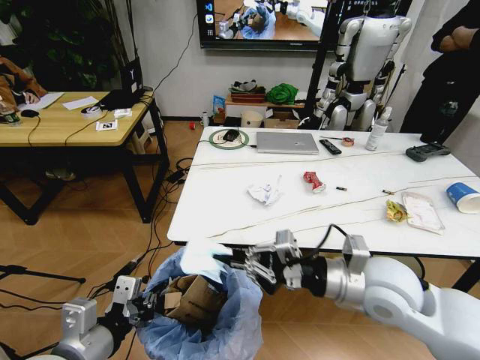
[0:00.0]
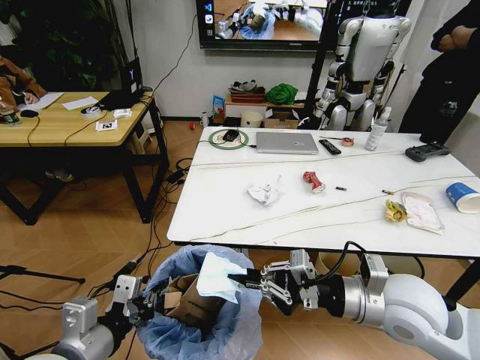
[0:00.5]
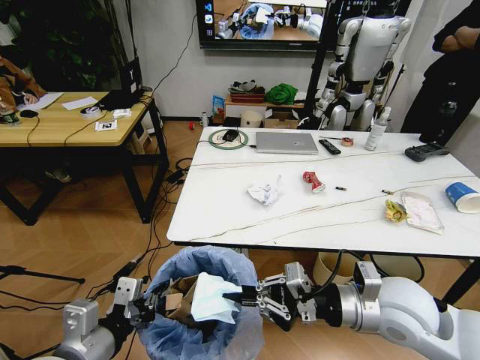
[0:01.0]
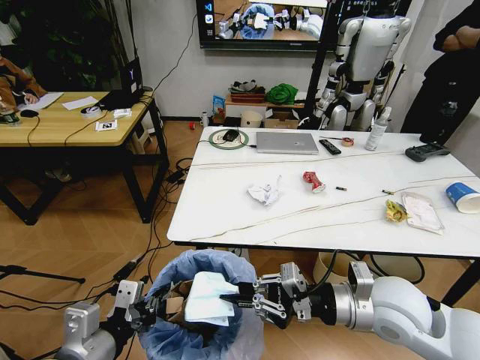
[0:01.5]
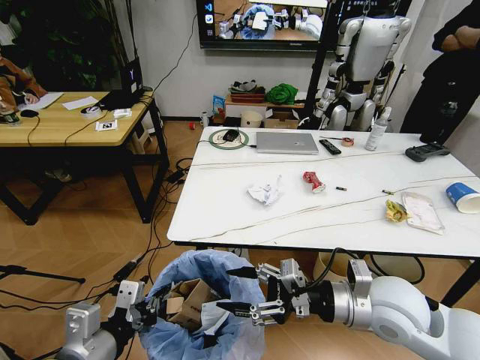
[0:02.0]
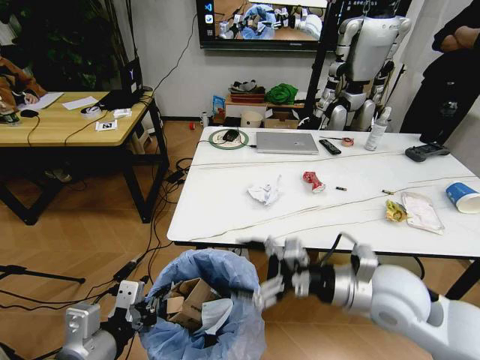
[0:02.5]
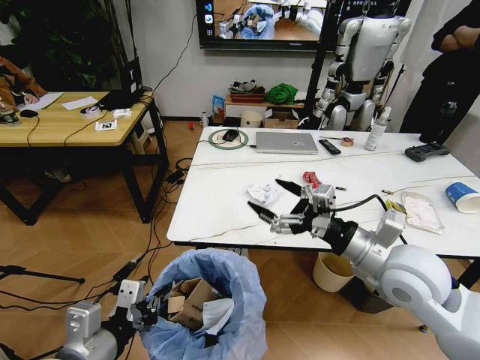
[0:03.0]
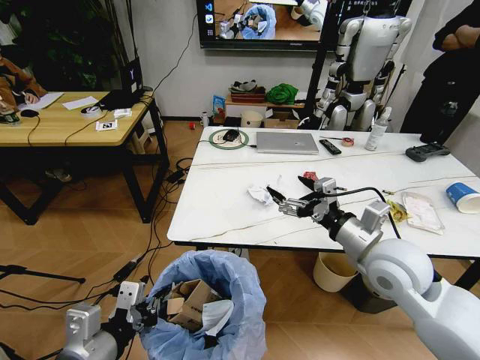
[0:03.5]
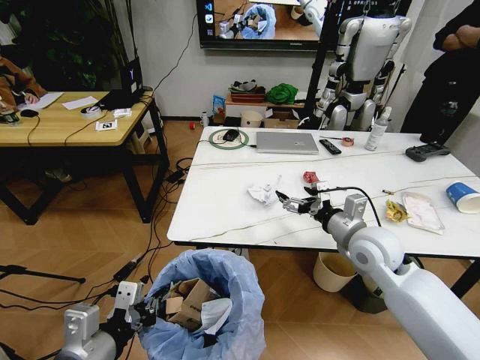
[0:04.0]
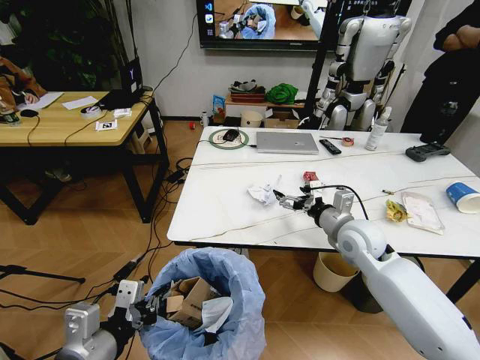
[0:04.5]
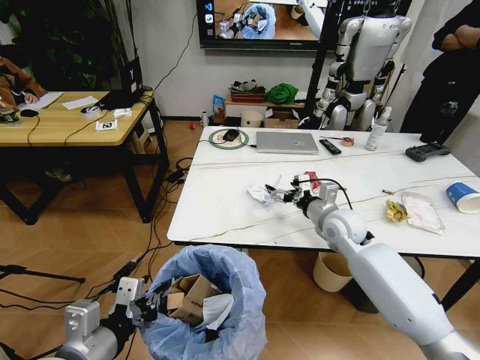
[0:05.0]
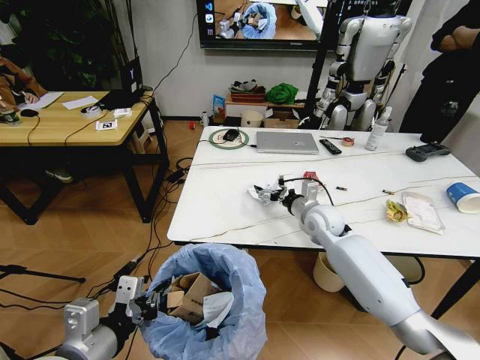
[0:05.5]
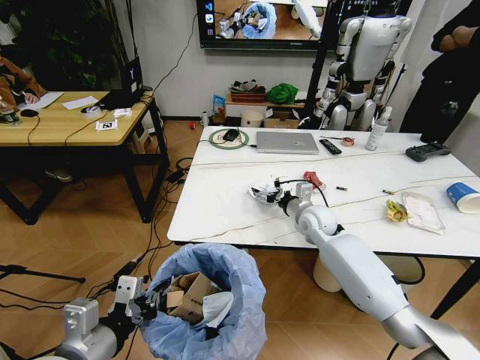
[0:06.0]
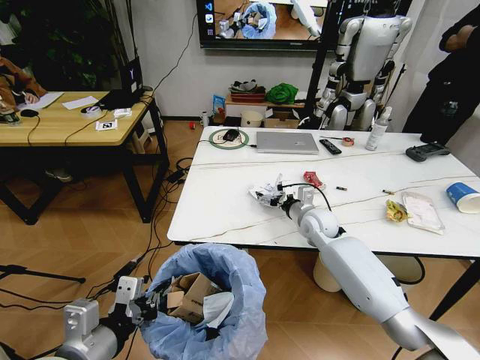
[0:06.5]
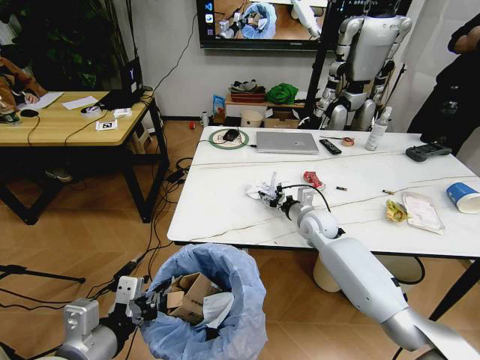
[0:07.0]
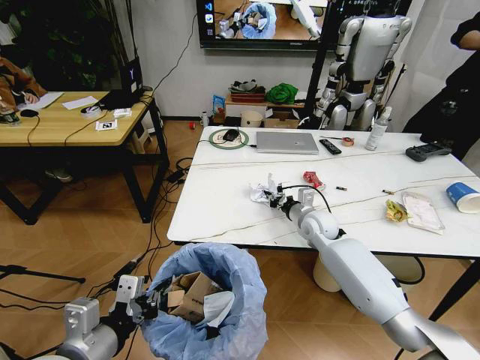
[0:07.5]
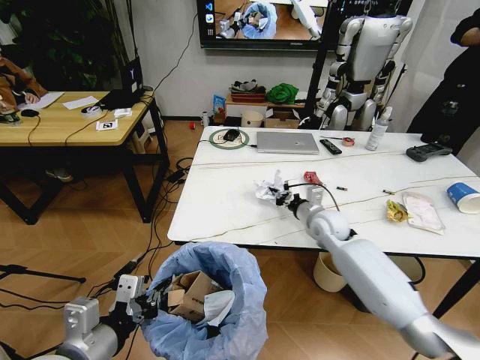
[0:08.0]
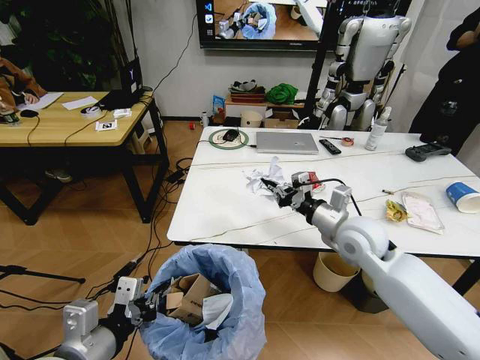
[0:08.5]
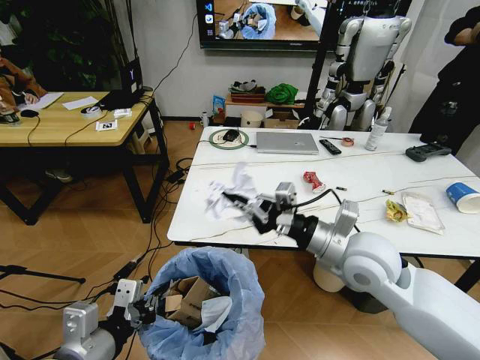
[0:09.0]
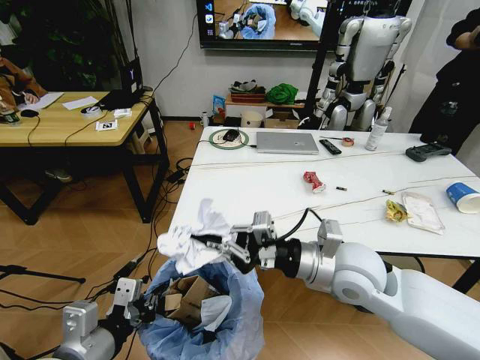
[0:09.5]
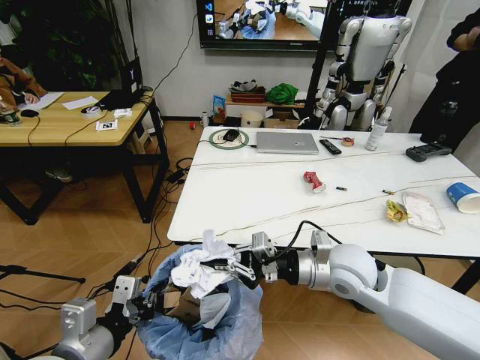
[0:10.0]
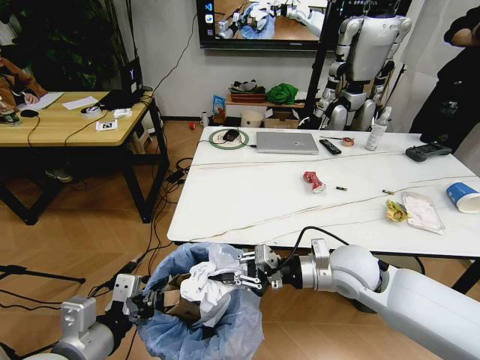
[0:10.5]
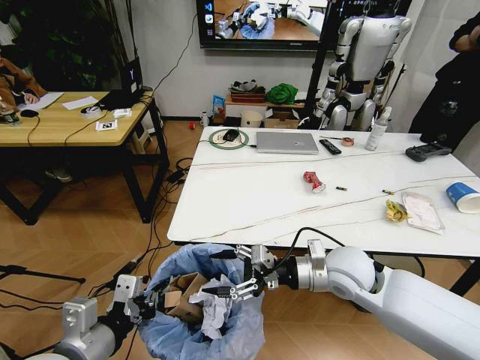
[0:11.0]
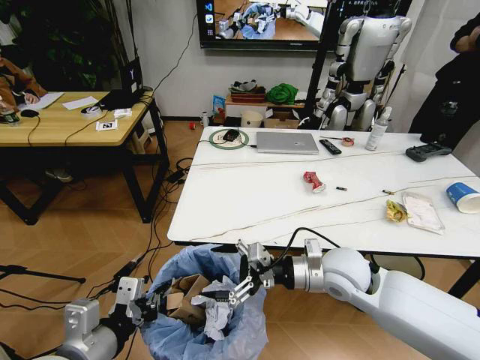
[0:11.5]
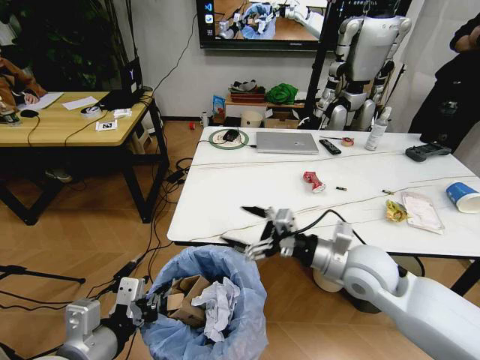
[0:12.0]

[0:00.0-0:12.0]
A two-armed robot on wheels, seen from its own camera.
Task of the whole recording: Pick up the trash bin and place the trash from the table into it.
0:00.0 to 0:02.0: The right gripper opens.
0:02.0 to 0:04.0: The right gripper is displaced forward by roughly 10 cm.
0:04.0 to 0:06.0: The right gripper heads forward, downward and to the left, covering about 15 cm.
0:06.0 to 0:08.0: The right gripper closes.
0:08.0 to 0:10.0: The right gripper shifts about 20 cm backward and upward.
0:10.0 to 0:12.0: The right gripper opens.

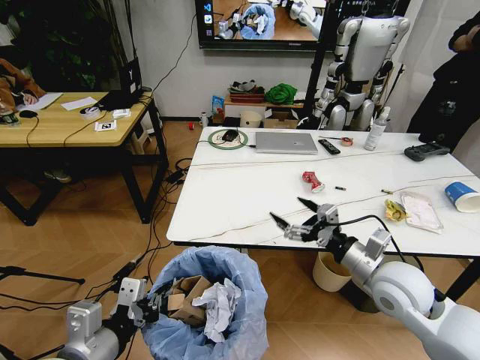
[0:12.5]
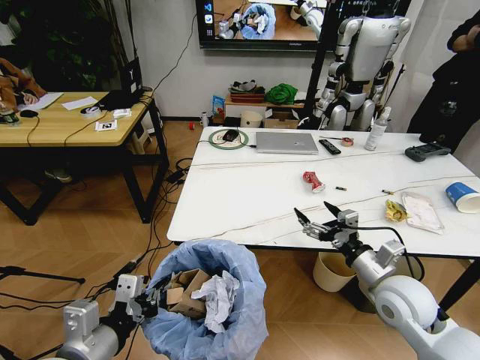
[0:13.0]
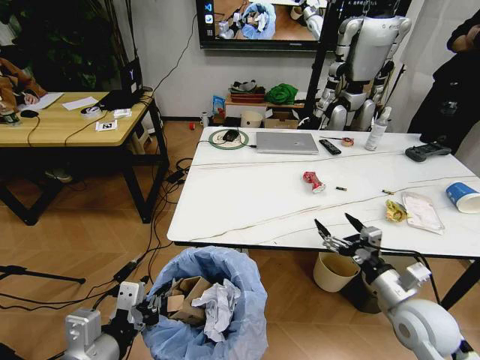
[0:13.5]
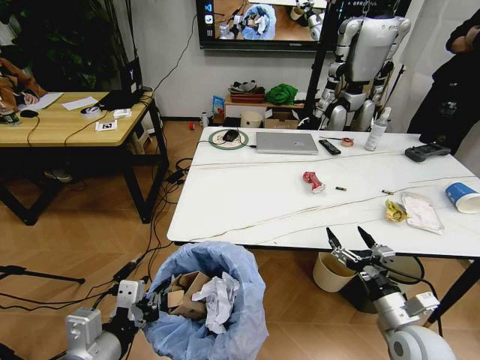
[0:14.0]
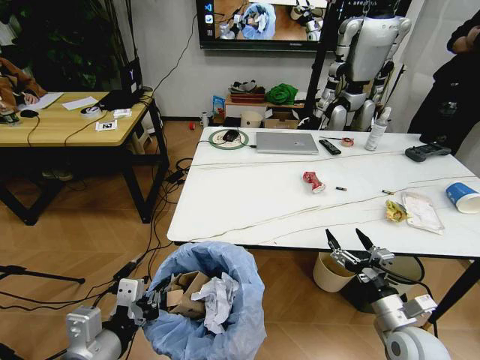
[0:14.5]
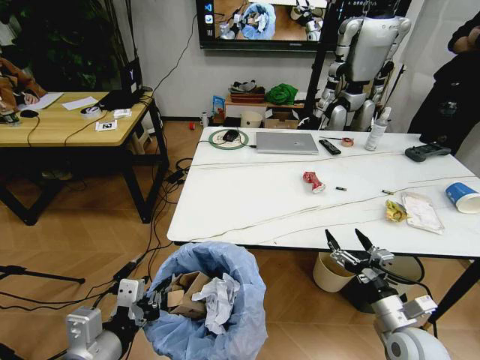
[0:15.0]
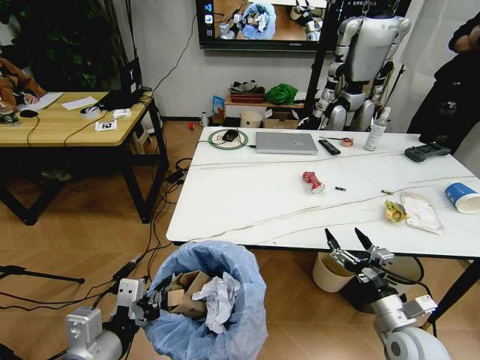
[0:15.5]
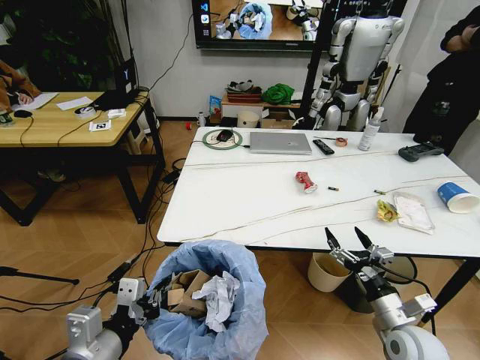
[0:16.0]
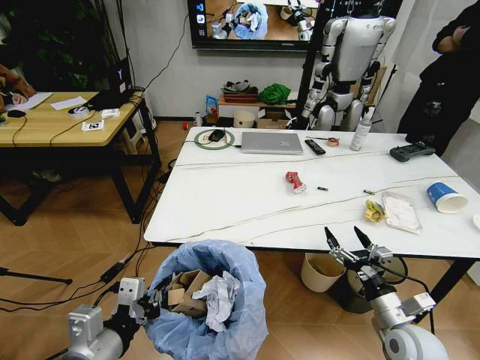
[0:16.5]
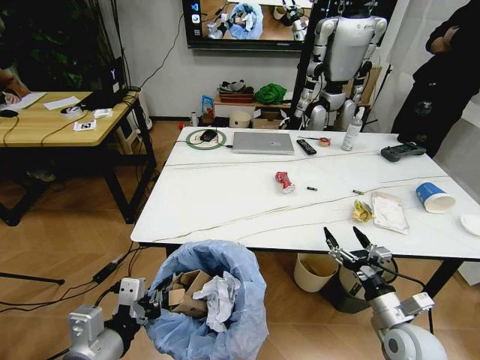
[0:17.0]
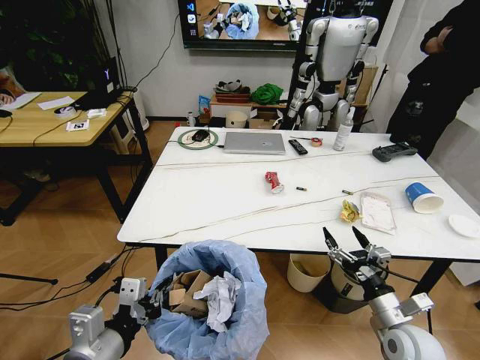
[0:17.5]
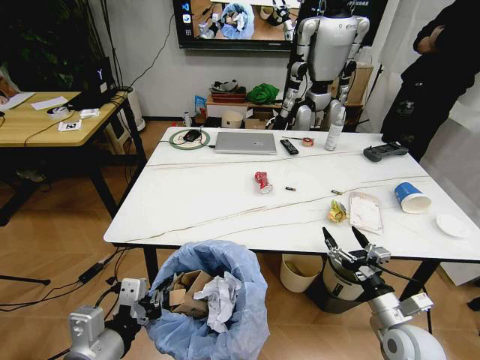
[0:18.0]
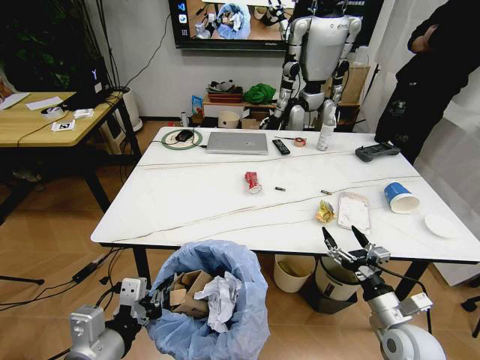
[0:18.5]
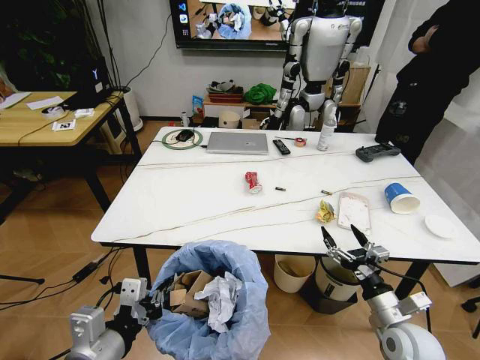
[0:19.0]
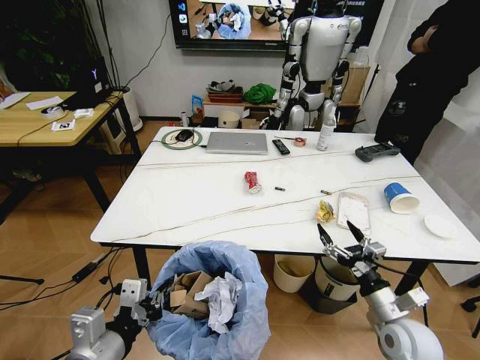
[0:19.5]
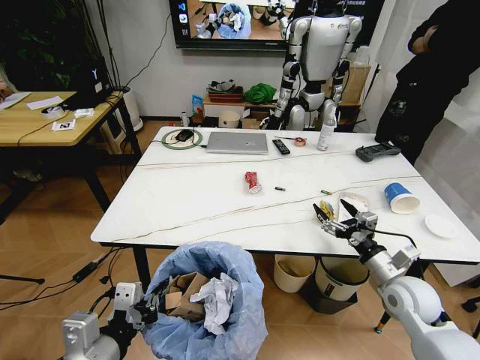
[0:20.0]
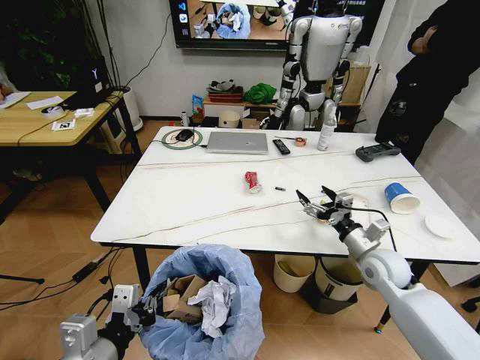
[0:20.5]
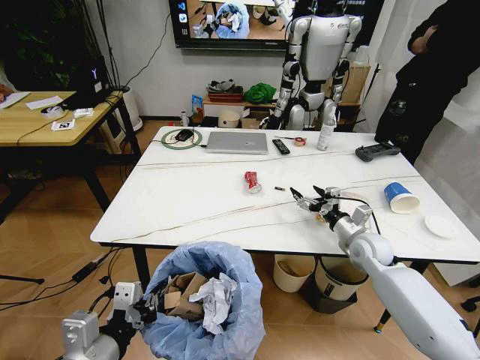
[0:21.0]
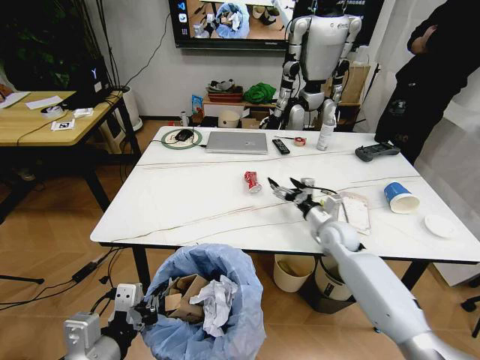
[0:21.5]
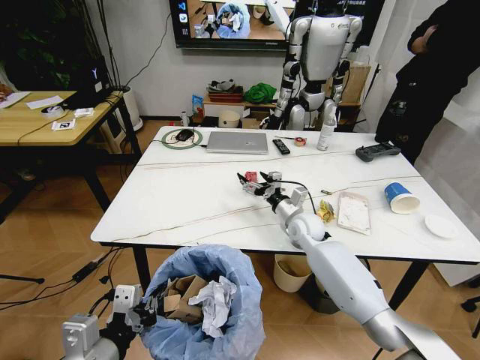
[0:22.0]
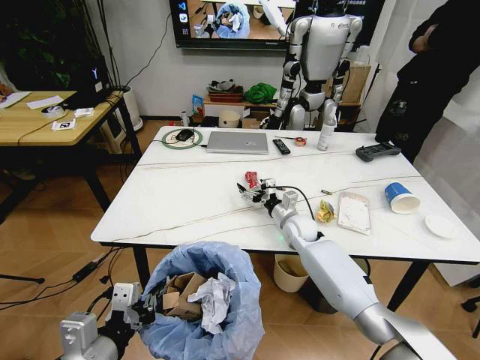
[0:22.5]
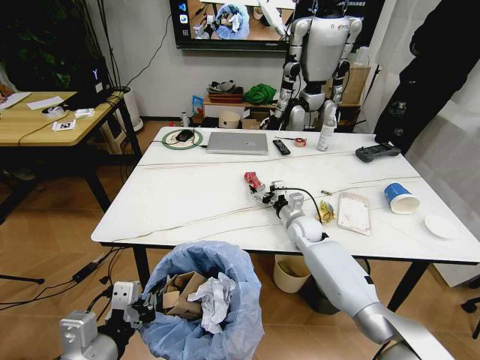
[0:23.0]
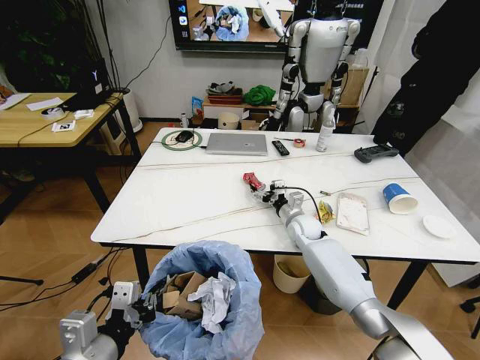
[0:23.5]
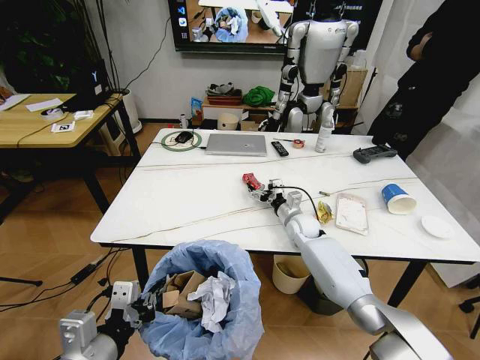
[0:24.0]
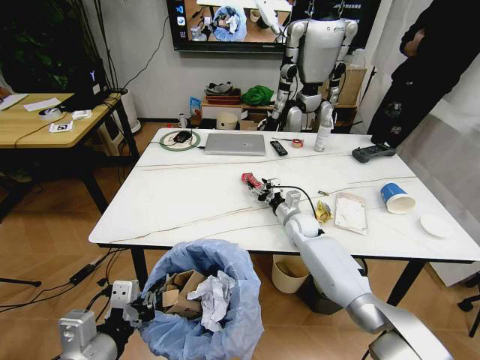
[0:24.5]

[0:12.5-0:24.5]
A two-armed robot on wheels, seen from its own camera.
Task of the whole recording: Pick up the trash bin and place the trash from the table into it.
0:12.5 to 0:14.5: The right gripper moves downward, backward and to the right, some 15 cm.
0:18.5 to 0:20.5: The right gripper shifts roughly 15 cm forward.
0:20.5 to 0:22.5: The right gripper heads to the left and forward, covering some 20 cm.
0:22.5 to 0:24.5: The right gripper closes up.

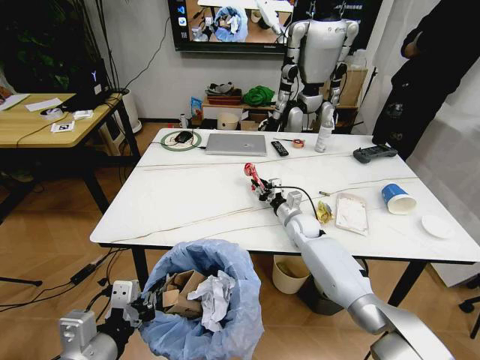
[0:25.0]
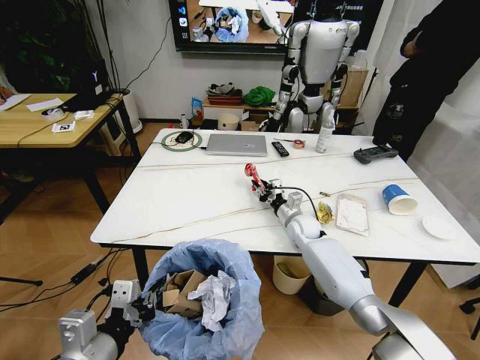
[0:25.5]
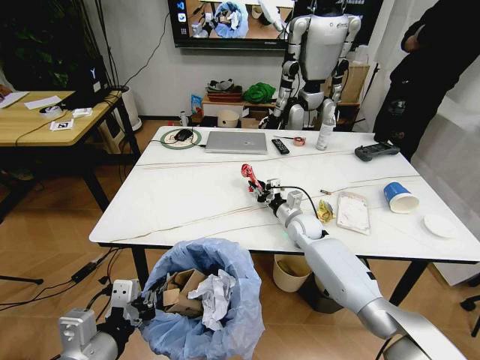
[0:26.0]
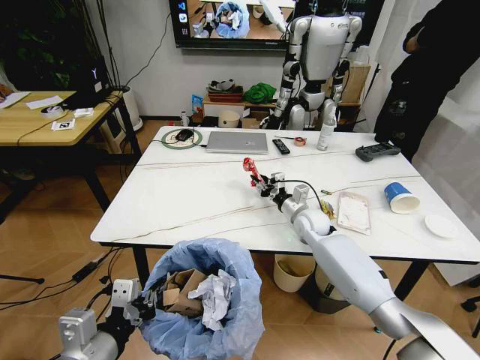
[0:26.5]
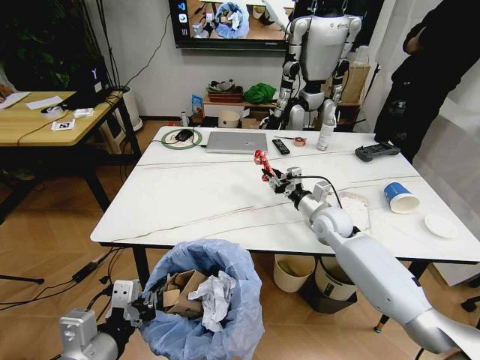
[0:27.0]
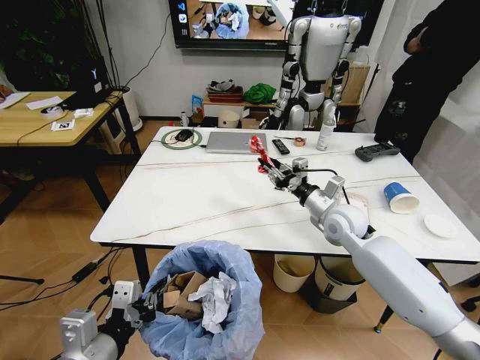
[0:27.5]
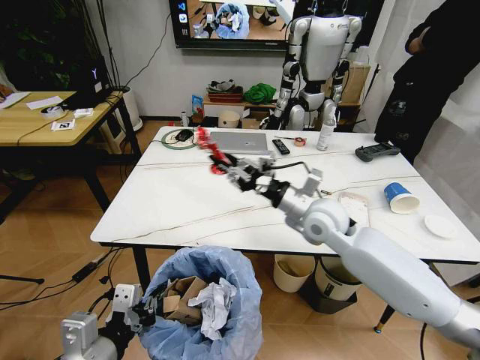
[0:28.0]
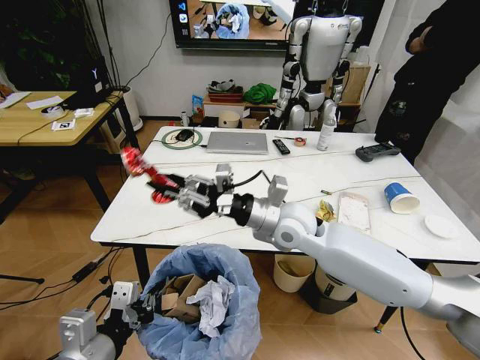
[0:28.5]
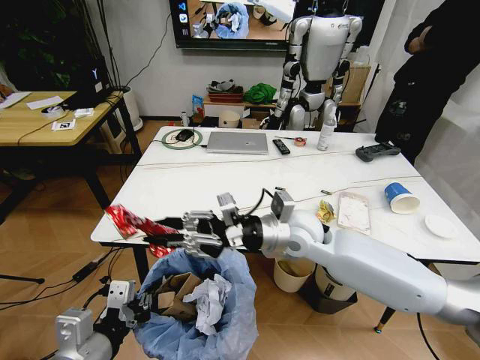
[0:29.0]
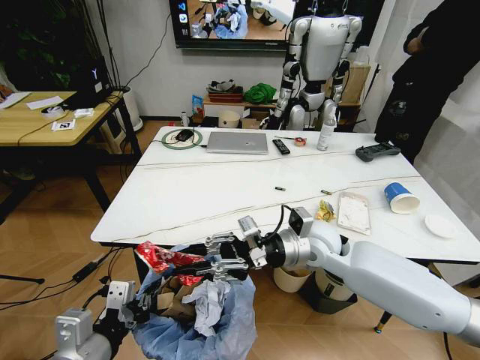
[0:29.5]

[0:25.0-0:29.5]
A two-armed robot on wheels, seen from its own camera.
Task of the whole recording: Pick up the trash bin and place the trash from the table into it.
0:25.0 to 0:27.0: The right gripper is displaced upward and to the right by roughly 10 cm.
0:27.0 to 0:29.5: The right gripper shifts approximately 15 cm backward, to the left and upward.
